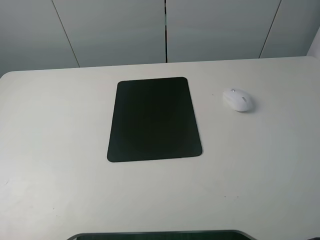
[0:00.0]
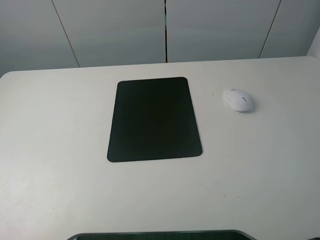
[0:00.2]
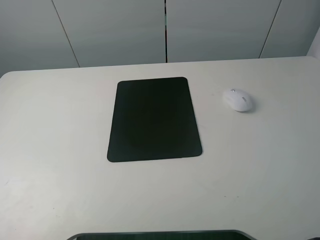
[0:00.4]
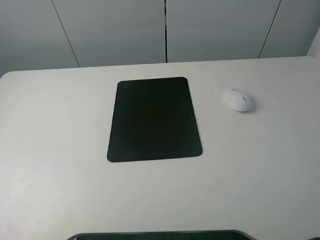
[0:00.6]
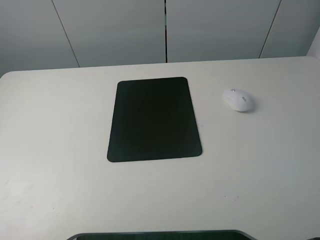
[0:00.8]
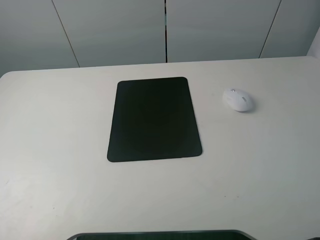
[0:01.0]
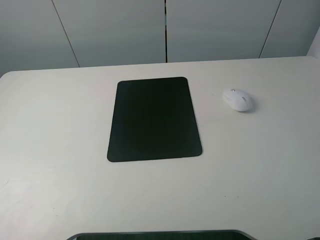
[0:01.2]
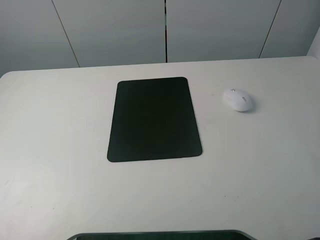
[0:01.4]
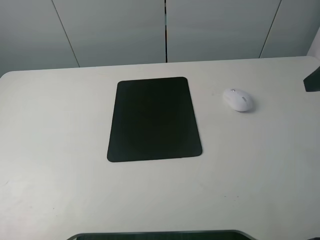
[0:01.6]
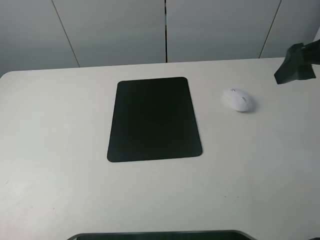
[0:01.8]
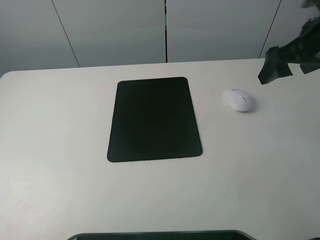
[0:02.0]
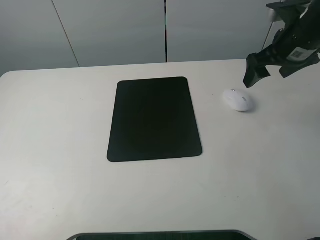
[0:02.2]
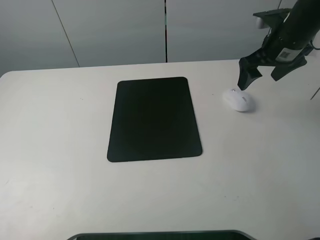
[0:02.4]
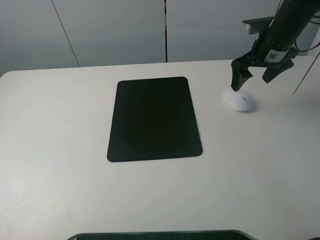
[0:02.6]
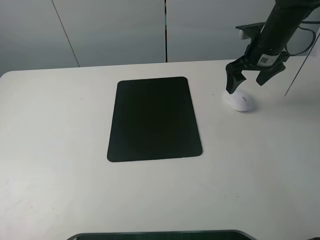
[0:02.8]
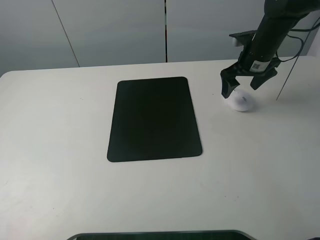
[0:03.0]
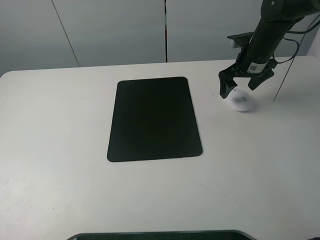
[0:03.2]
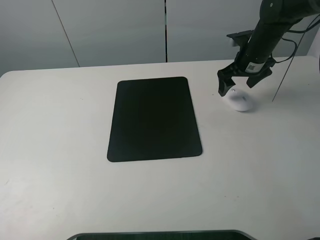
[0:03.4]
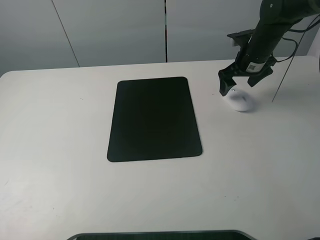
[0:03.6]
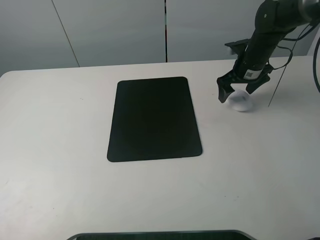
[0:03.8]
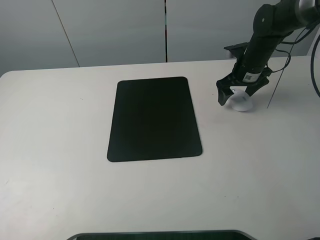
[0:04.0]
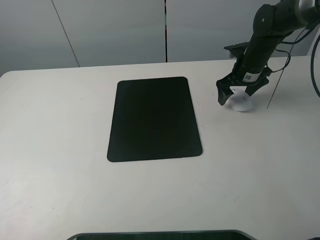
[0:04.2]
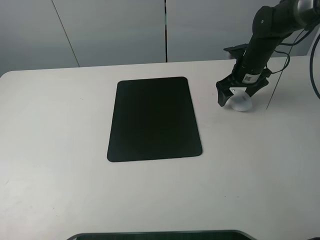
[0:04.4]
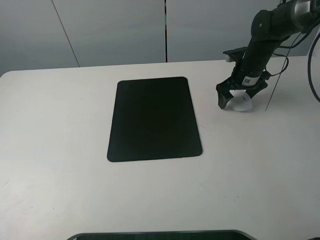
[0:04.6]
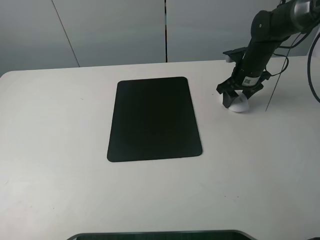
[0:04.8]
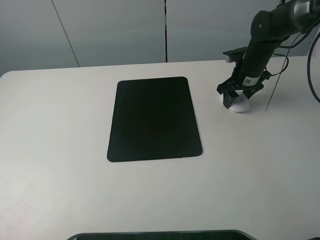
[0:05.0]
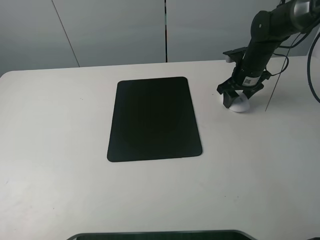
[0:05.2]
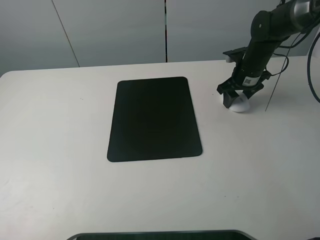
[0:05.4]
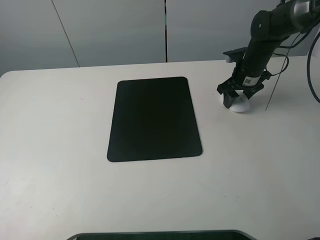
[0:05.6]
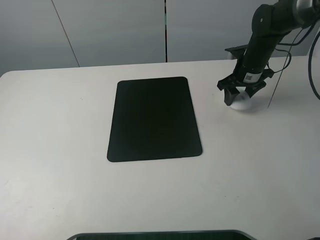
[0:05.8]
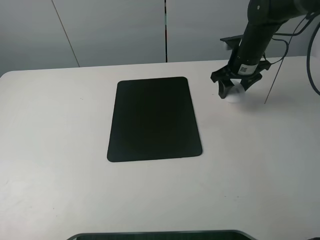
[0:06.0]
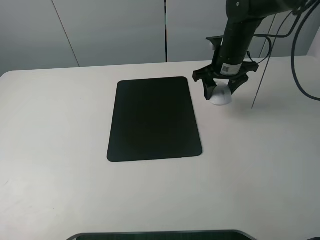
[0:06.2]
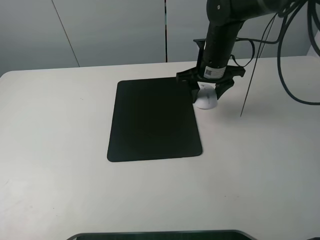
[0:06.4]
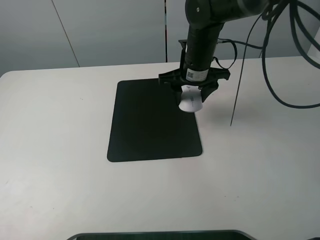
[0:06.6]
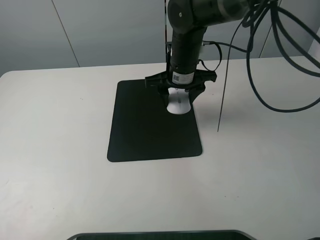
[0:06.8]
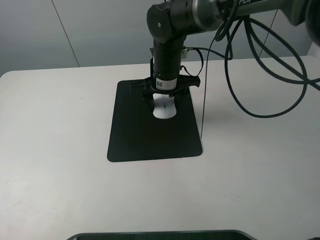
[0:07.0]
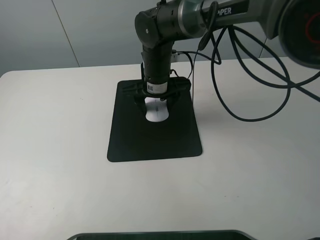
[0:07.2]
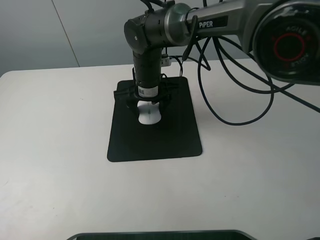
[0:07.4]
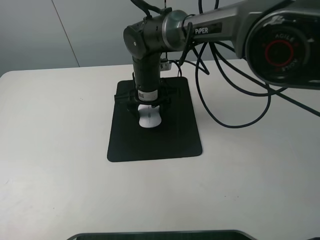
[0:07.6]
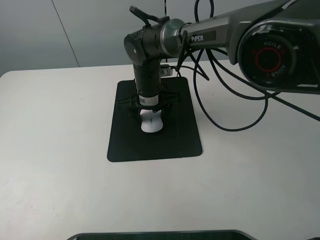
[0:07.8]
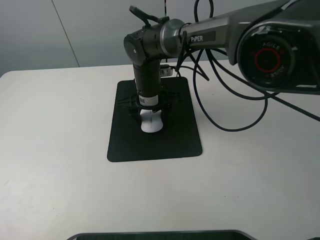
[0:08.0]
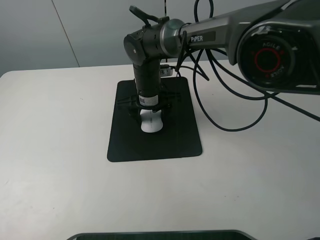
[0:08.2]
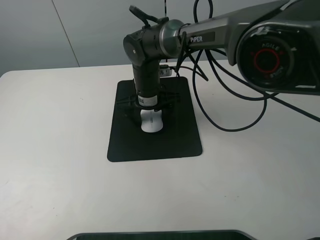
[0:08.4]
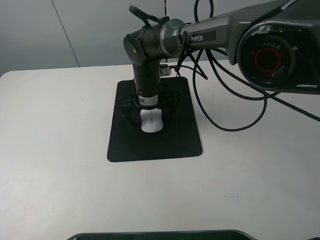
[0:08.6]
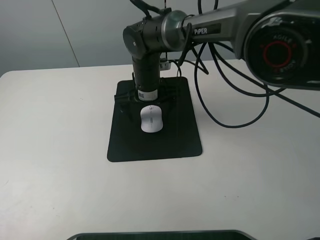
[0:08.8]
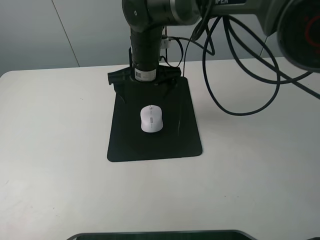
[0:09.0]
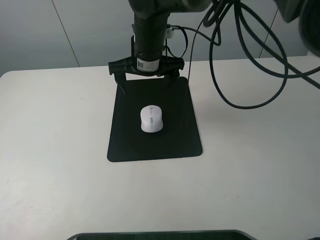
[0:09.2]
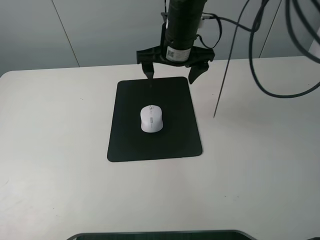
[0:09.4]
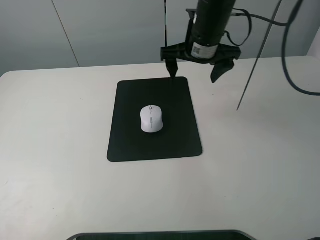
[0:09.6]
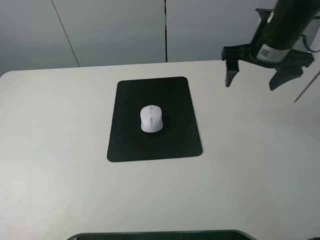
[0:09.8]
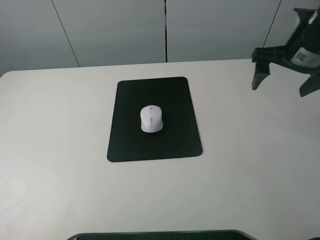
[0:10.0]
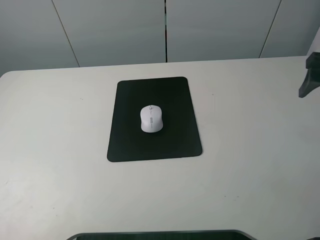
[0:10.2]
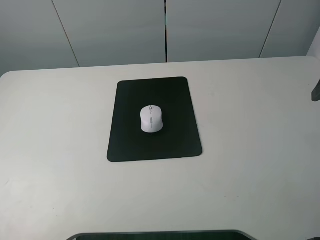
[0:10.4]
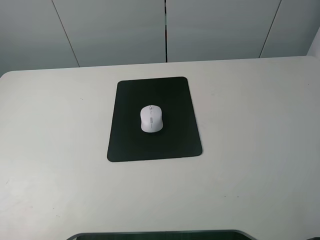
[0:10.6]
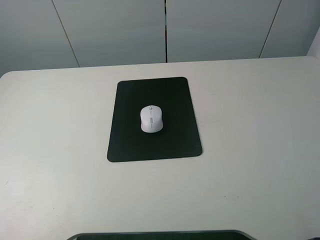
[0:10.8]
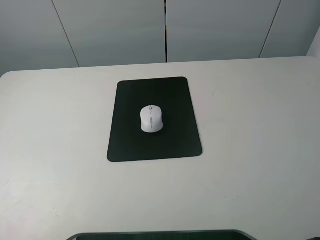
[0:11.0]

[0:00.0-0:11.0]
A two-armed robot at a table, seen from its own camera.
Step, 0:00.0 to 0:05.2: Grasp the mouse with the right gripper.
Step, 0:05.4 to 0:08.4: Place the mouse on the mouse mat with the right gripper.
0:01.6 to 0:03.2: The right gripper goes approximately 30 cm forward and downward.
0:03.2 to 0:04.8: The right gripper closes up.
0:04.8 to 0:06.2: The right gripper shifts approximately 10 cm to the left and upward.
0:06.2 to 0:07.8: The right gripper shifts approximately 20 cm to the left.
0:07.8 to 0:09.4: The right gripper shifts about 15 cm upward and to the right, and opens its fingers.
0:09.4 to 0:11.0: The right gripper goes approximately 40 cm backward and to the right.

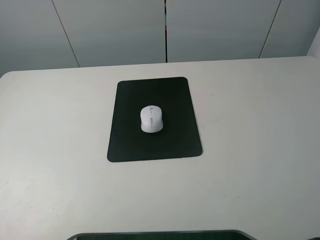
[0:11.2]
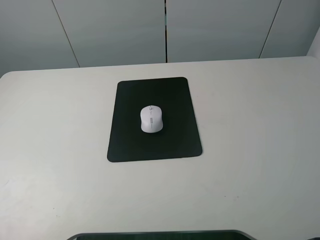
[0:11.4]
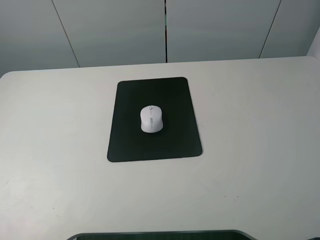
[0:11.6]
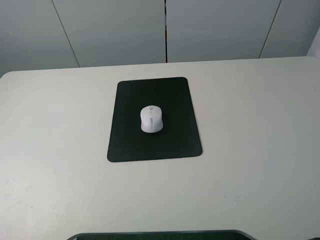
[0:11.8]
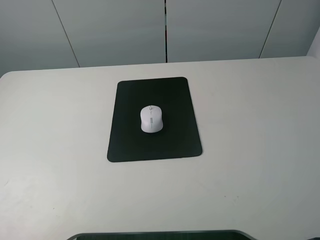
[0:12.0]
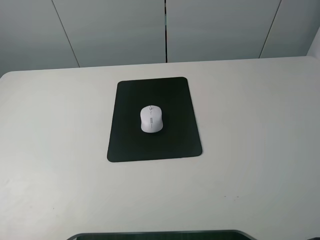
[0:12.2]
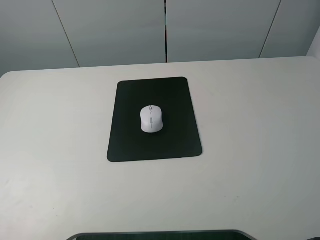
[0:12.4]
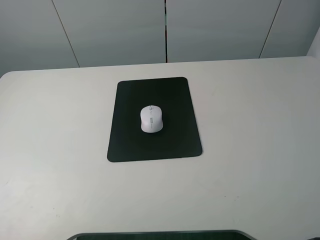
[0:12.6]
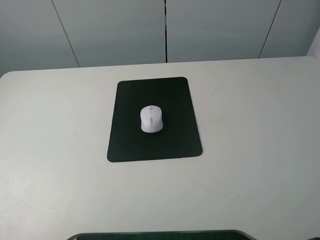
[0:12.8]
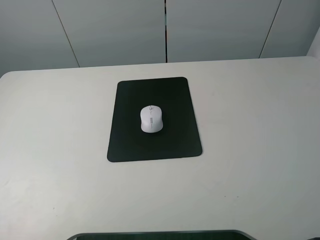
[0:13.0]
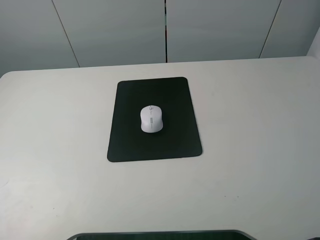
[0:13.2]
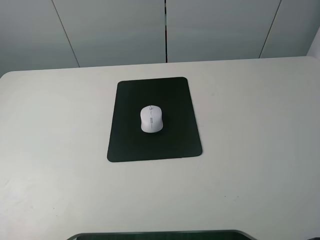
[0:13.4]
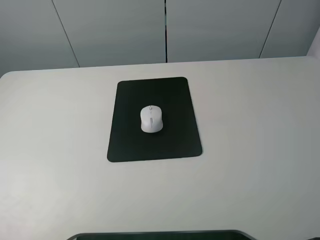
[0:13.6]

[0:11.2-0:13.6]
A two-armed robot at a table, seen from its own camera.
0:12.4 to 0:13.6: Both grippers stay put.
